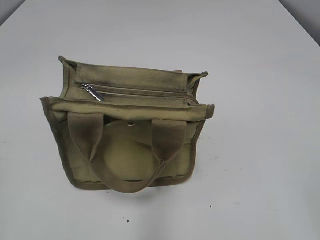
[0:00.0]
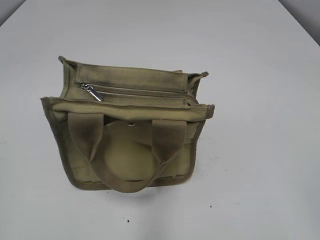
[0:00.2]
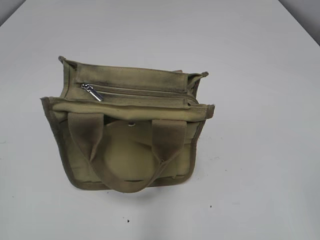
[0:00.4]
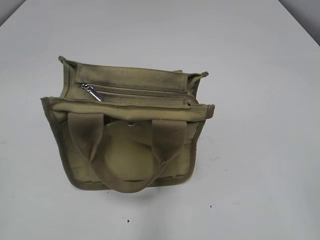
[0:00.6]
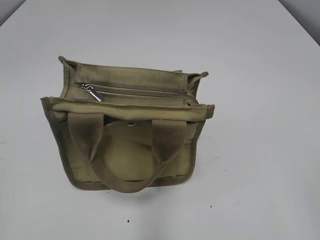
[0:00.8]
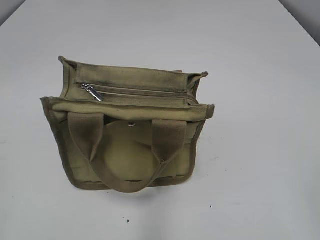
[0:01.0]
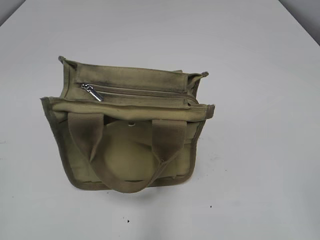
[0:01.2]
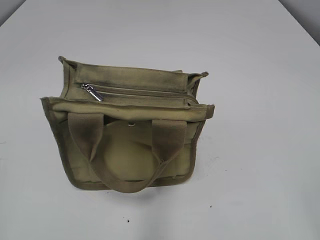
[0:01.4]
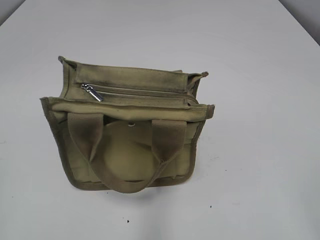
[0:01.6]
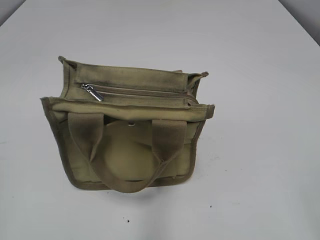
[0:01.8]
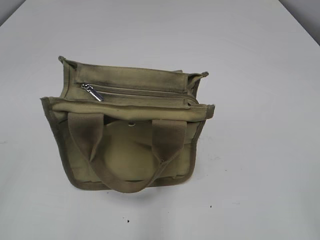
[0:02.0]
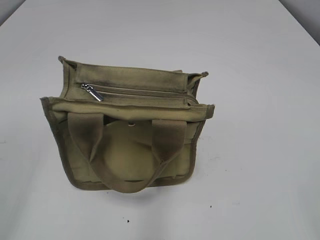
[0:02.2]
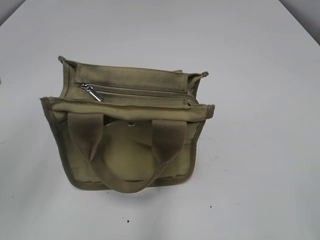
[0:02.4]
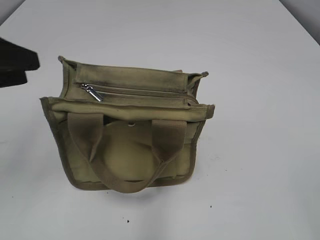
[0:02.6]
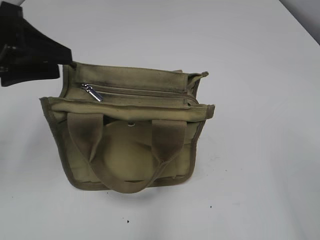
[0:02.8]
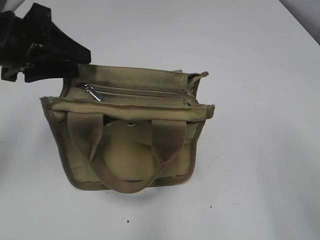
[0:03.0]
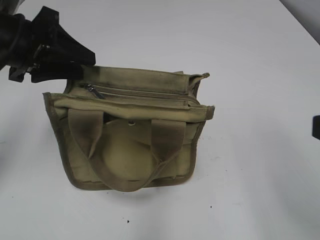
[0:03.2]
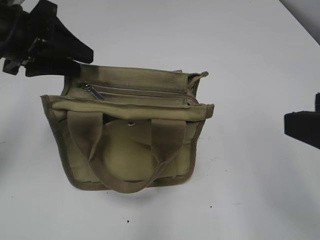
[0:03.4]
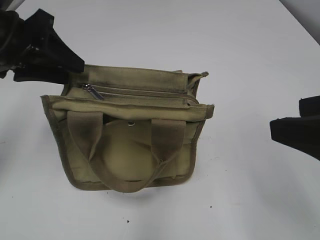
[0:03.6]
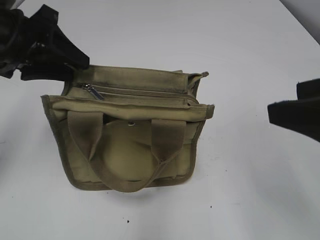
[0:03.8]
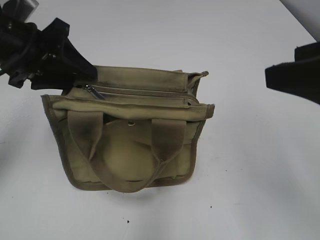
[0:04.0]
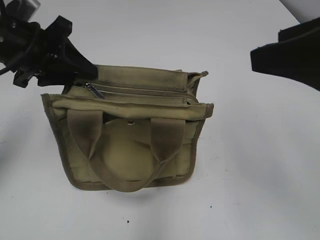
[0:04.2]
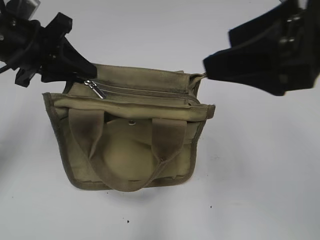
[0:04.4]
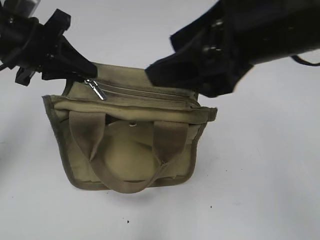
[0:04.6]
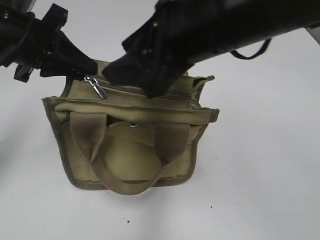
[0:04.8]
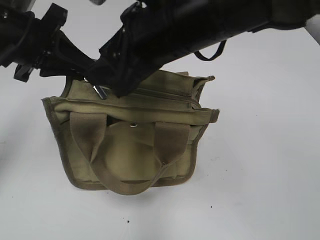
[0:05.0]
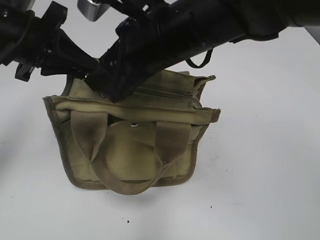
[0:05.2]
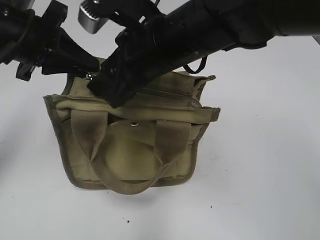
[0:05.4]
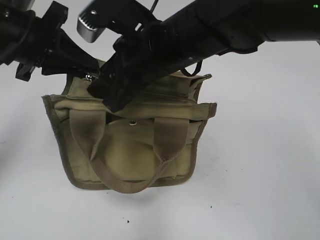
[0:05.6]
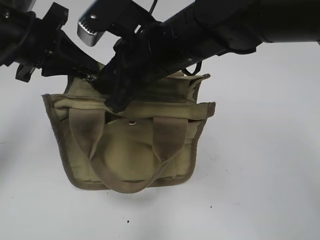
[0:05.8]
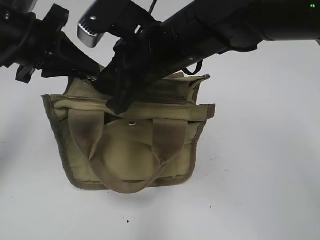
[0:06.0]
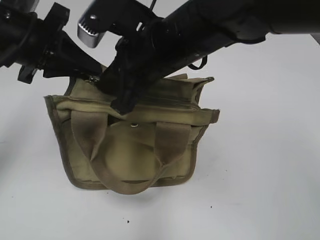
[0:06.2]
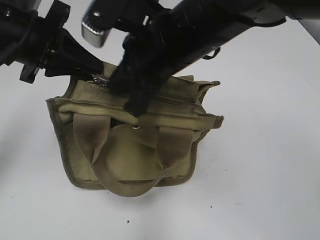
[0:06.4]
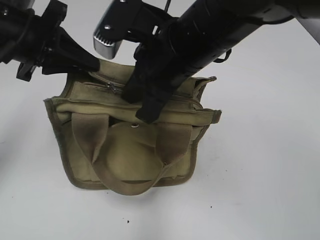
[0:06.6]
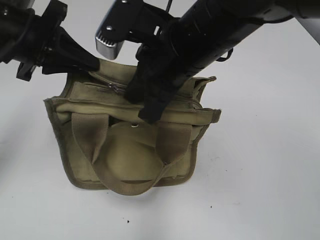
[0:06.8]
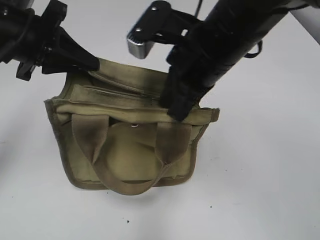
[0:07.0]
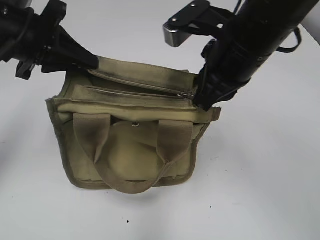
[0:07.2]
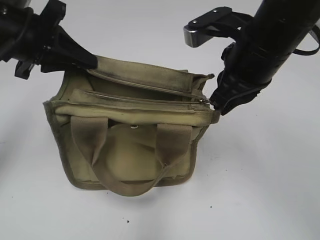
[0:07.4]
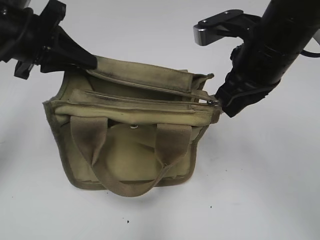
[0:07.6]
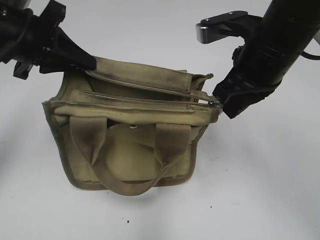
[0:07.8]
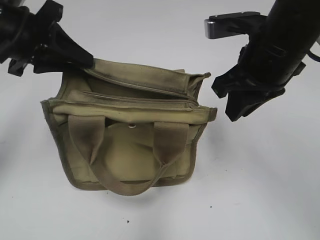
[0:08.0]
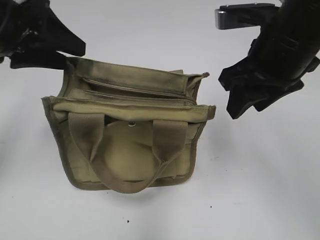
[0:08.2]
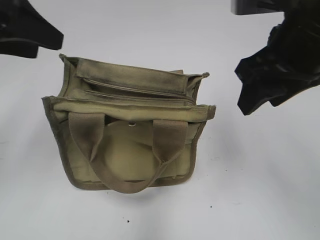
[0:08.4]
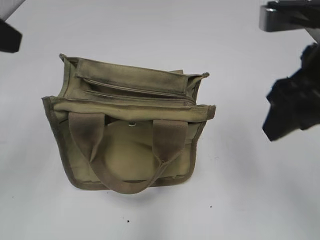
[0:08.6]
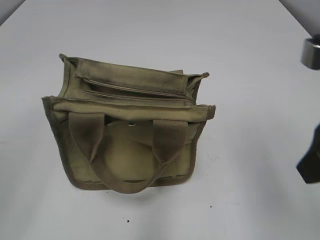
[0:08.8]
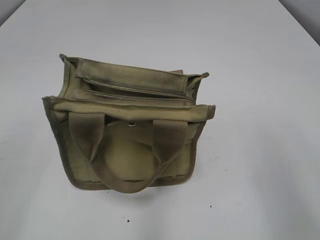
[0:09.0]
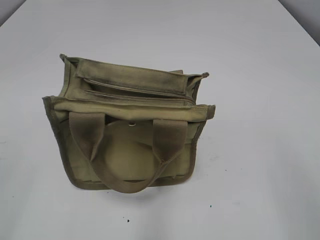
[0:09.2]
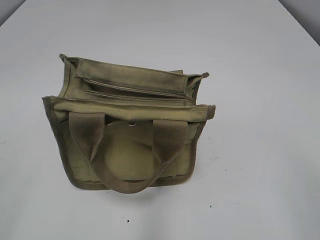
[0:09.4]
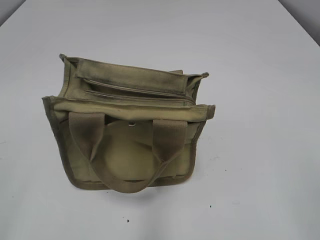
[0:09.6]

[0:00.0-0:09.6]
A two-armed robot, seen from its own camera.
Step, 0:00.0 to 0:07.8: Pull open the zipper with your right hand.
Step, 0:08.0 to 0:08.2: Hold the bag with your left hand.
0:01.6 to 0:03.2: The left gripper is displaced forward by some 30 cm. The right gripper shifts about 10 cm forward.
0:03.2 to 0:04.8: The right gripper shifts roughly 25 cm to the left and forward, while the left gripper closes up.
0:04.8 to 0:06.4: The right gripper changes place by roughly 5 cm, and closes its fingers.
0:06.4 to 0:08.0: The right gripper heads to the right, covering approximately 10 cm.
0:08.0 to 0:09.6: The right gripper shifts roughly 30 cm backward and to the right, and opens, while the left gripper heads backward, covering approximately 30 cm, and opens up.

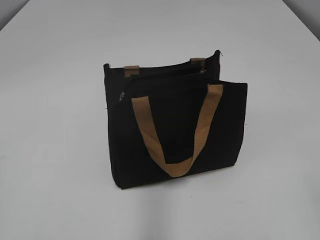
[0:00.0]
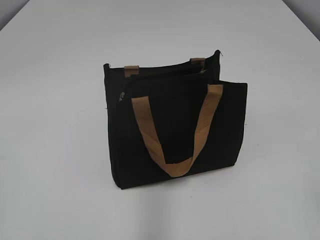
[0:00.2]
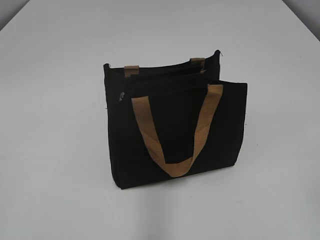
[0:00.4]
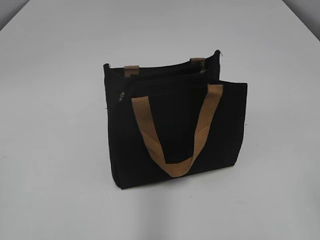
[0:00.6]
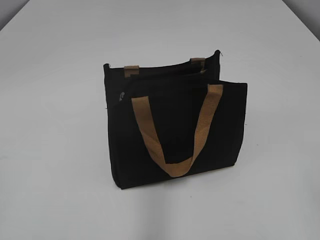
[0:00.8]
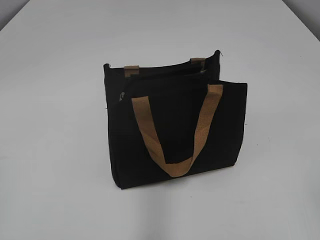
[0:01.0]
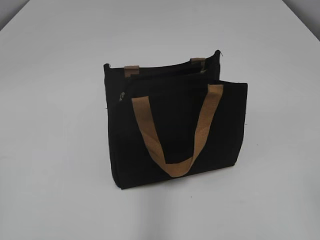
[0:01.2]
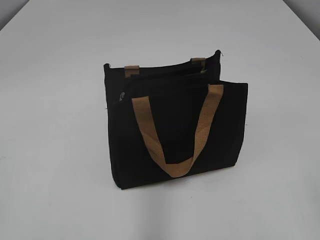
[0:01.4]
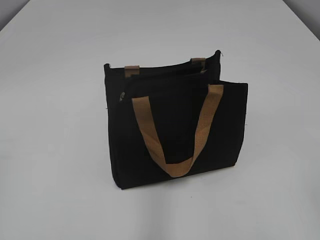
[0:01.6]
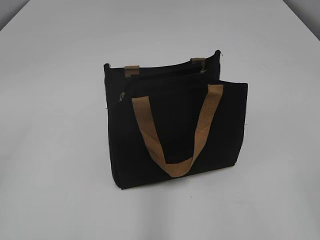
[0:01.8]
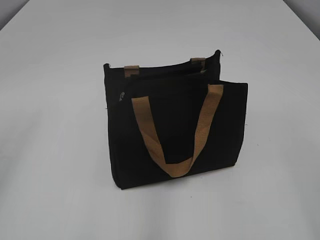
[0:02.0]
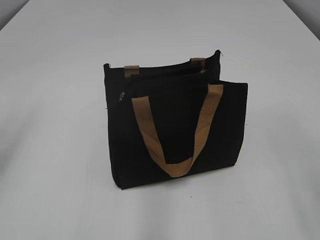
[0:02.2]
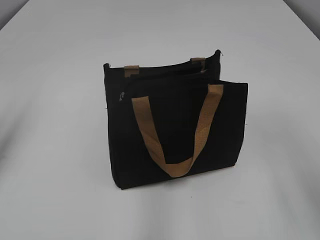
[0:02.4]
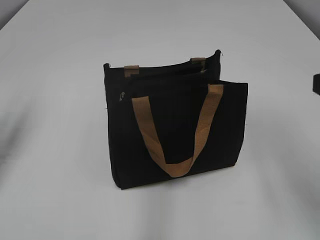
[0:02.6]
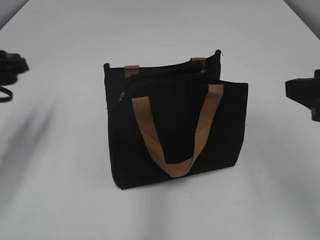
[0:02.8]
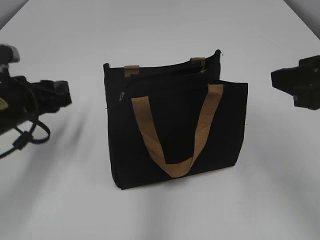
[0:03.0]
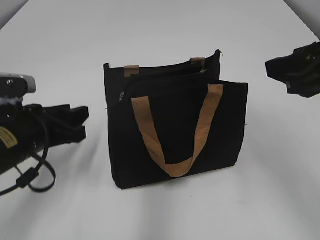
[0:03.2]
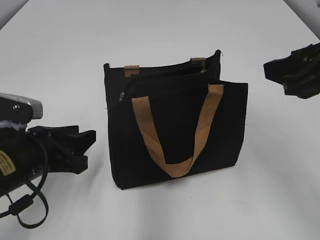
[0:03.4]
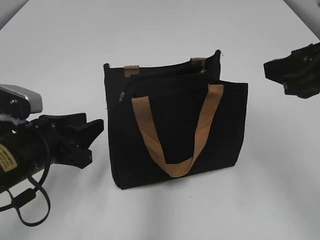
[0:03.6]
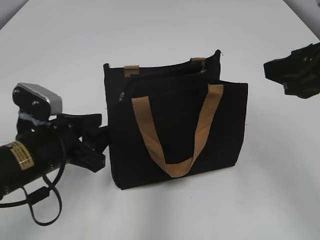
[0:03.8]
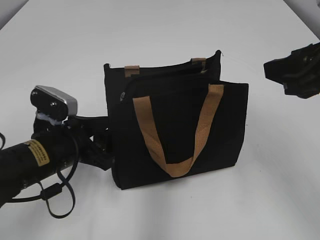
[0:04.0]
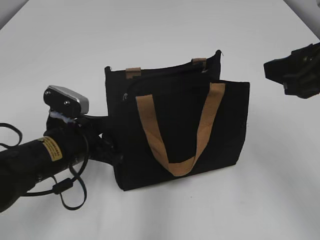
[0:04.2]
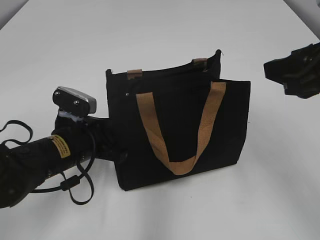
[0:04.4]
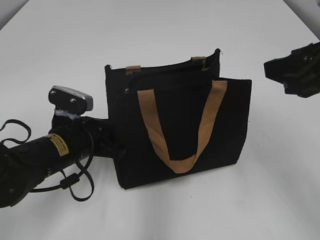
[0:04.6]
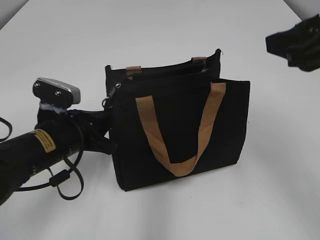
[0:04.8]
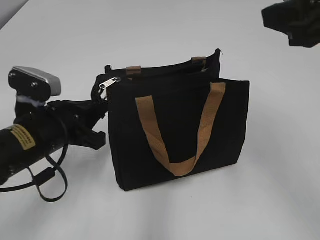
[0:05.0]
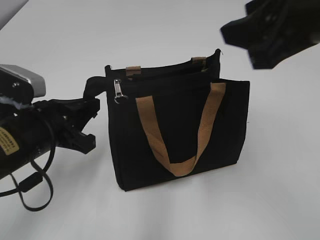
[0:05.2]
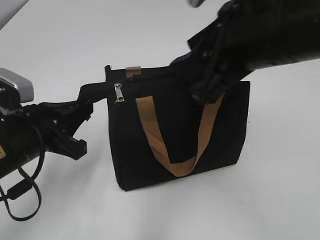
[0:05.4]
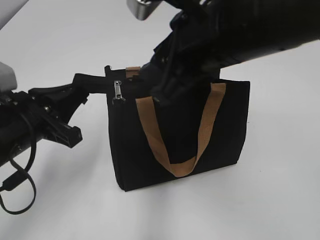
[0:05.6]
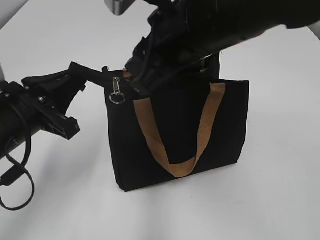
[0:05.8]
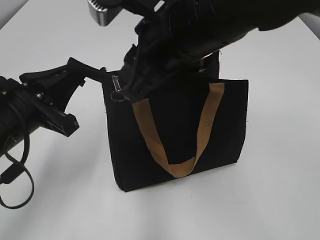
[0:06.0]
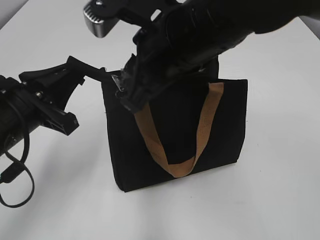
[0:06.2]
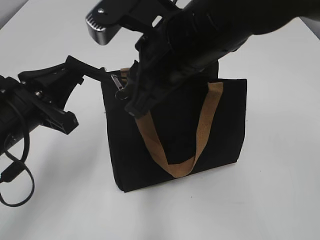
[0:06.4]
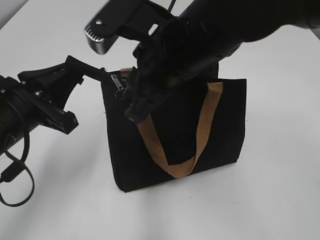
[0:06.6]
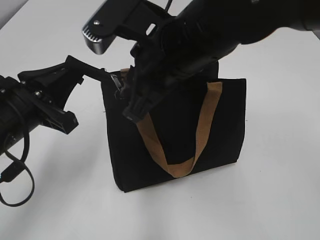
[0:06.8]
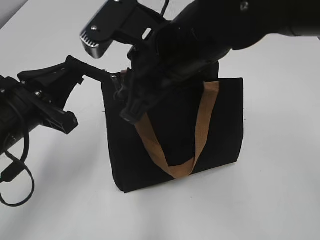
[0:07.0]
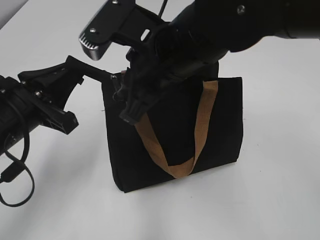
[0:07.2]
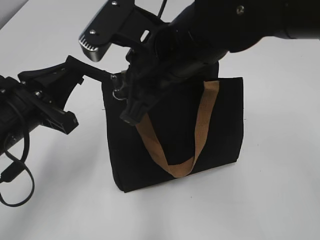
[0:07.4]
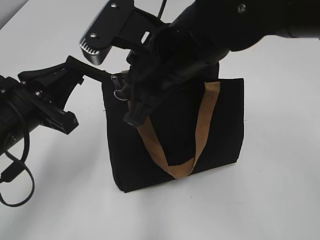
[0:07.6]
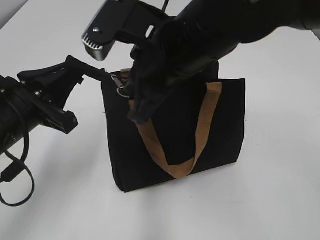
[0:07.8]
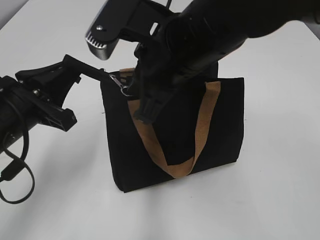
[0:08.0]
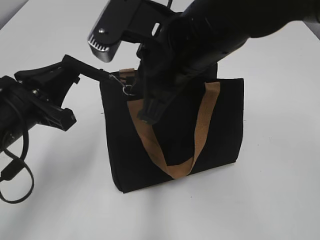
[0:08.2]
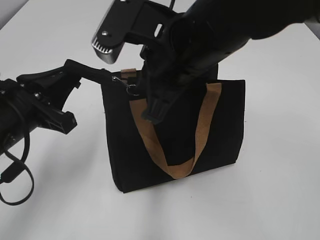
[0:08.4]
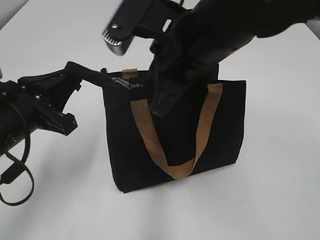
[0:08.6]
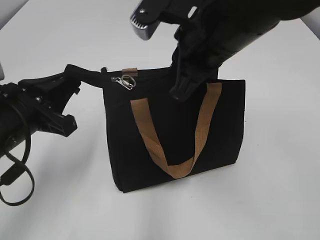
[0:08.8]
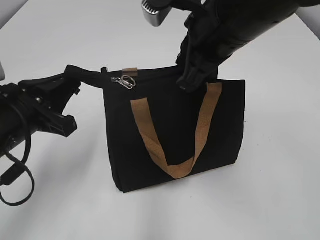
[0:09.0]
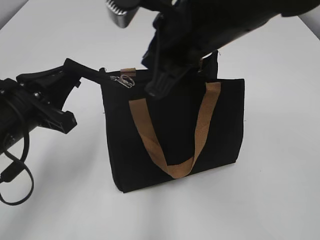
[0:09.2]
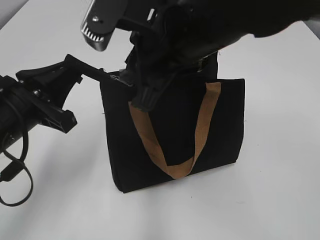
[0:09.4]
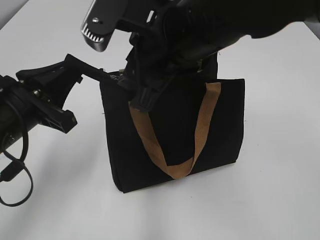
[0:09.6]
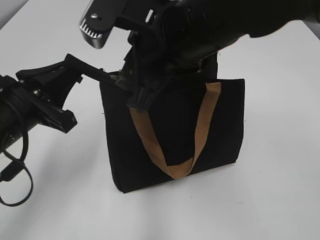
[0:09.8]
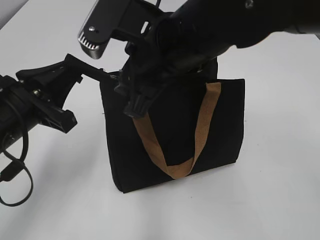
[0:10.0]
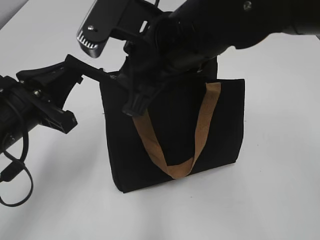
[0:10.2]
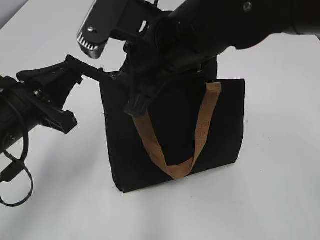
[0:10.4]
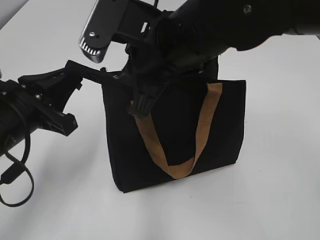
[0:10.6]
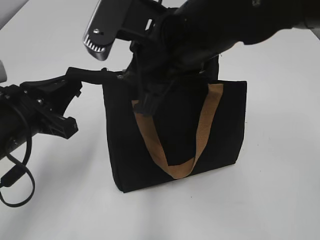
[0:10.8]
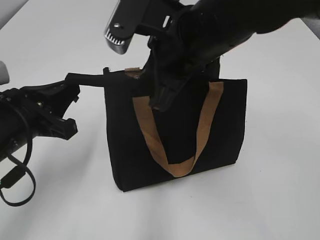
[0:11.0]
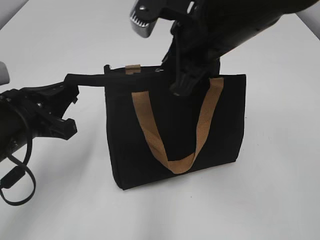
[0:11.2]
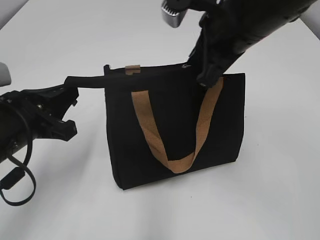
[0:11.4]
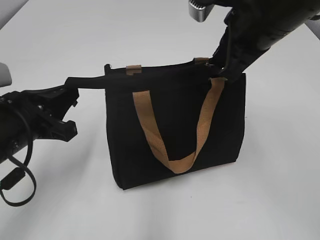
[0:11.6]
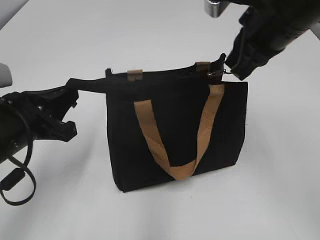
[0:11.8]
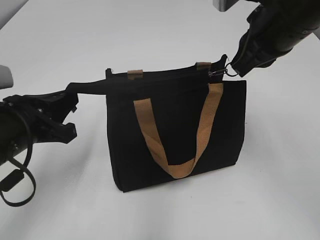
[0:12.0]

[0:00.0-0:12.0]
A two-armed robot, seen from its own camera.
Step, 0:00.0 to 0:12.0: Zip up the bag with your right hand.
0:01.6 to 0:03.0: The right gripper shifts about 20 cm forward. The left gripper is displaced forward and downward by approximately 30 cm.
0:03.0 to 0:04.4: The left gripper travels to the right and downward by about 10 cm.
0:04.4 to 0:06.0: The left gripper goes approximately 10 cm upward and backward, and closes. Meanwhile the right gripper shifts roughly 20 cm to the left, and closes its fingers.
0:06.0 to 0:07.6: The right gripper closes.
0:07.6 to 0:09.0: The right gripper travels to the right by some 5 cm.
0:09.0 to 0:10.4: The right gripper heads to the left, covering about 5 cm, and opens, then closes once more.
0:10.4 to 0:12.0: The right gripper shifts roughly 15 cm to the right.
